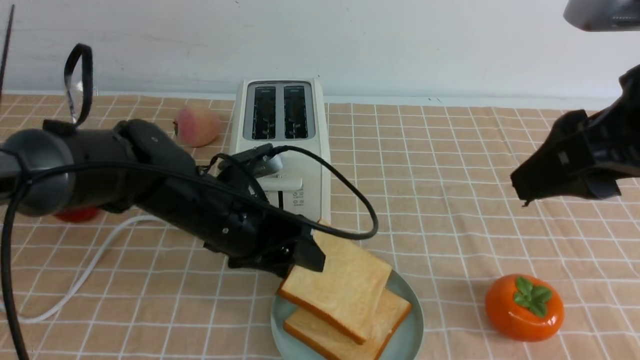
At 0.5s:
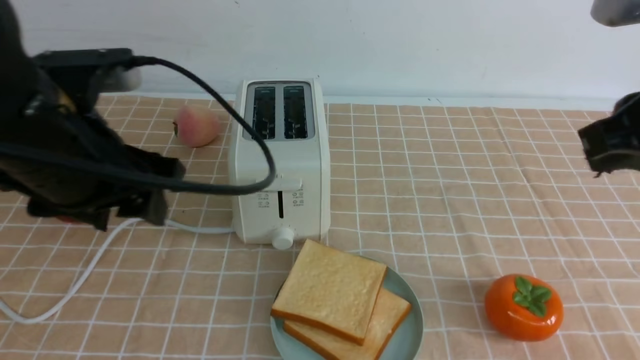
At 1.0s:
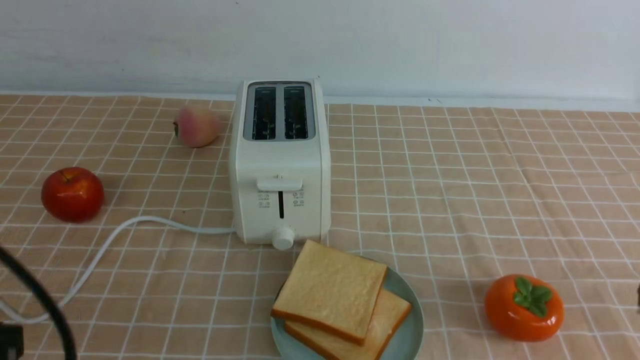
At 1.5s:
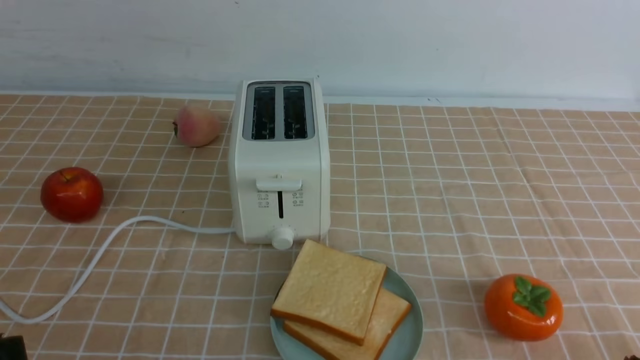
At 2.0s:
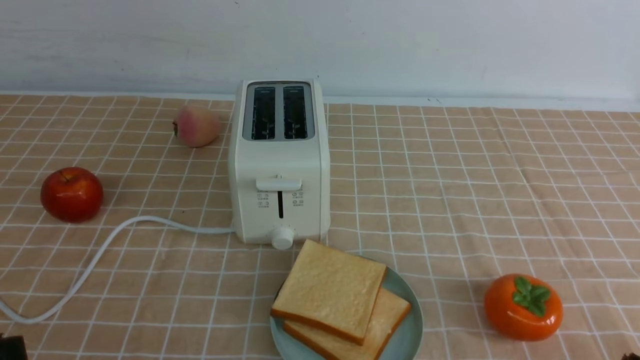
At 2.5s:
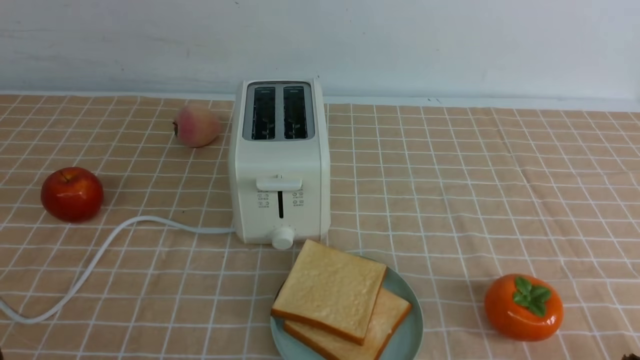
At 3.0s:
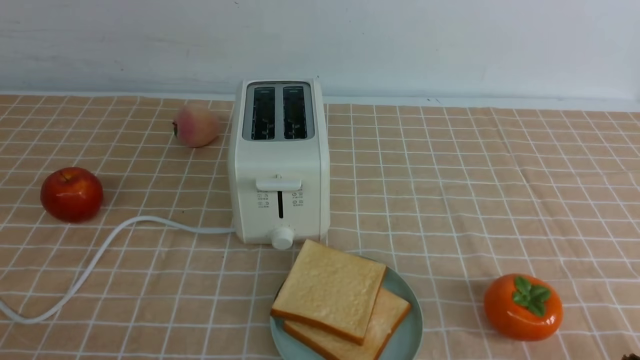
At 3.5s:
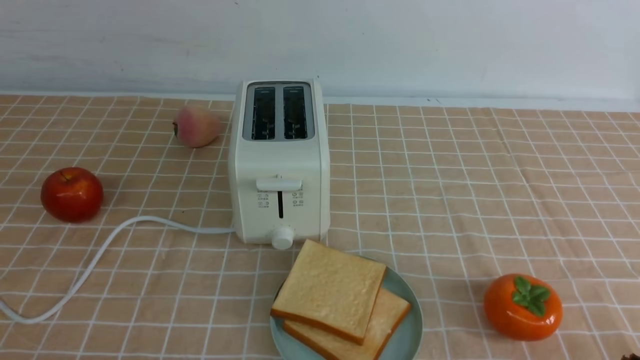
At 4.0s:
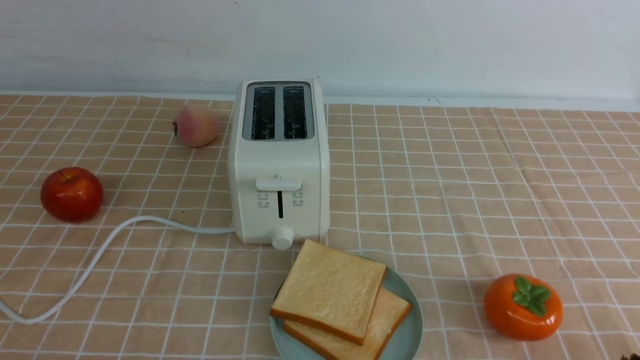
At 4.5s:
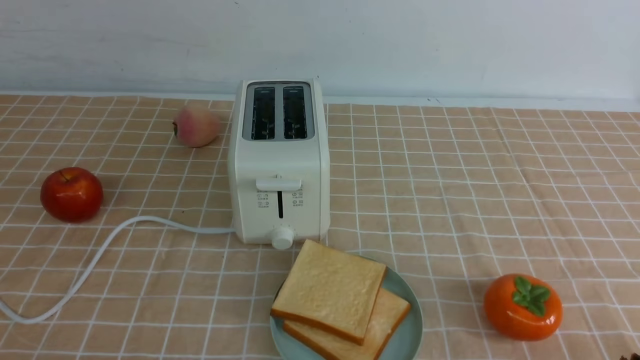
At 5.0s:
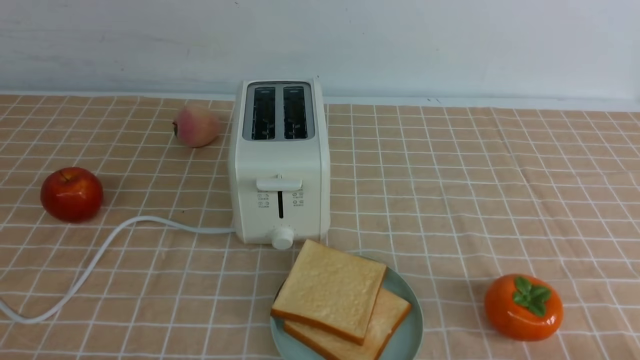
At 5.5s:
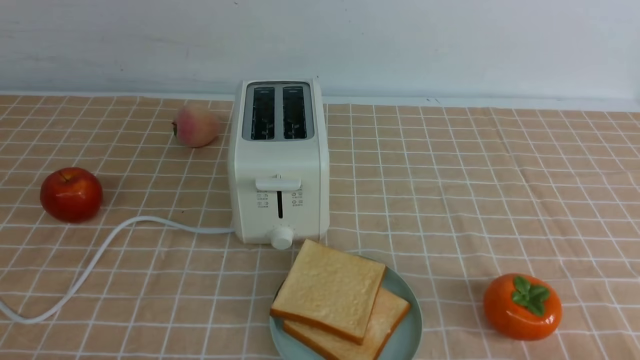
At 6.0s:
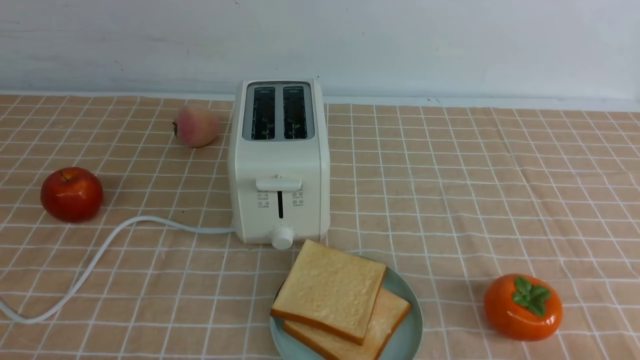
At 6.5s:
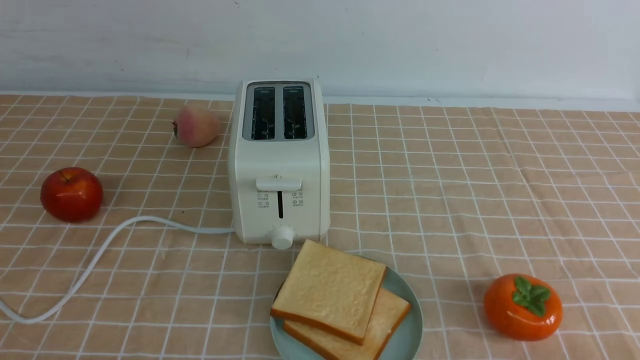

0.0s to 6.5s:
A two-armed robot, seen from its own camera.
Task of the whole recording: take toasted bread from bread machine on light coffee tablecloth place on plate.
0.0s to 2.0s: The left gripper moves backward and to the left, approximately 30 cm, and closes, while the right gripper goes roughly 25 cm downward and backward, and closes up.

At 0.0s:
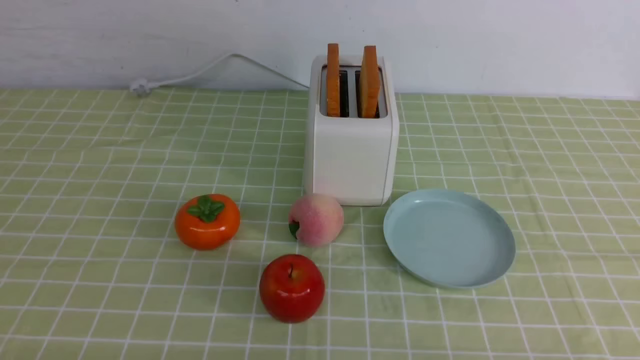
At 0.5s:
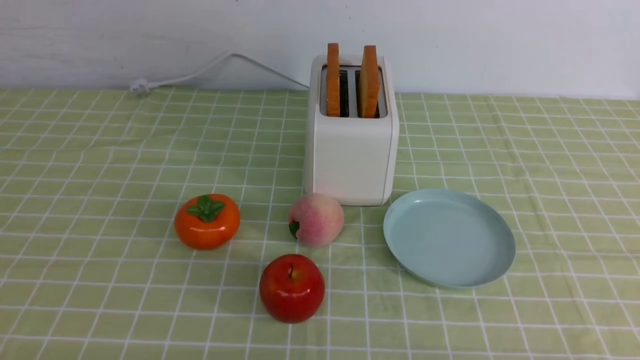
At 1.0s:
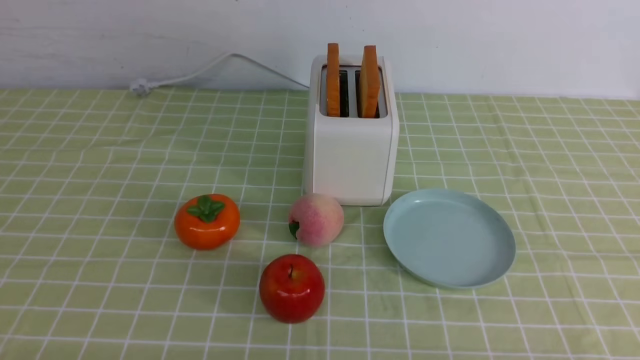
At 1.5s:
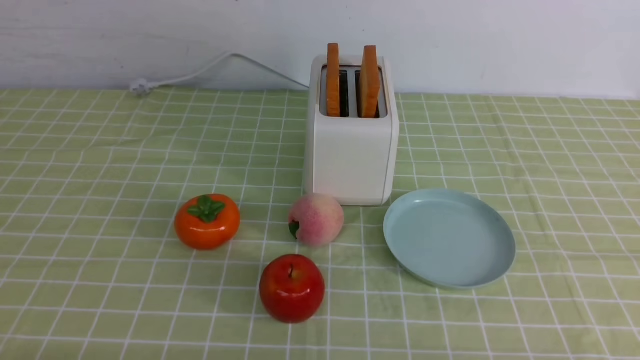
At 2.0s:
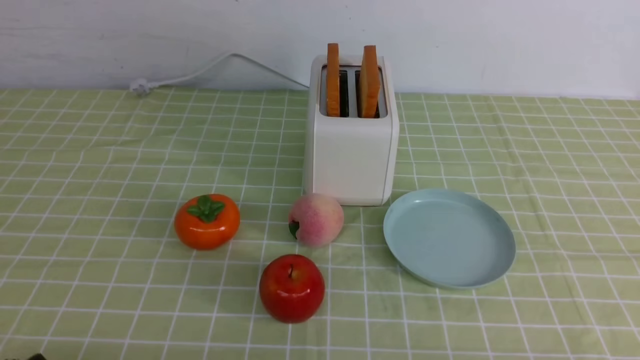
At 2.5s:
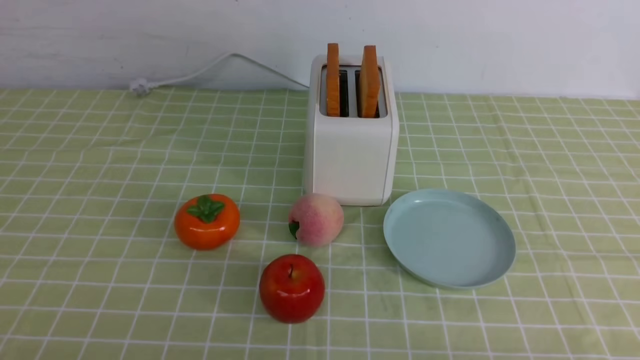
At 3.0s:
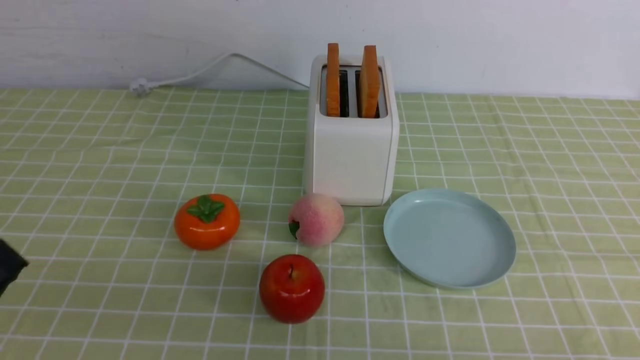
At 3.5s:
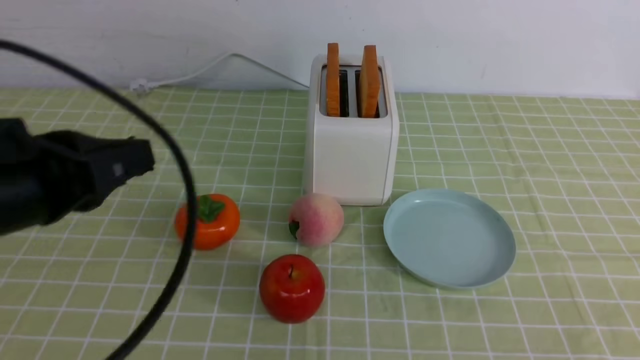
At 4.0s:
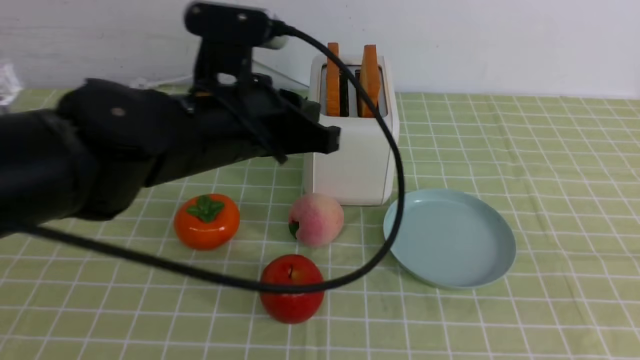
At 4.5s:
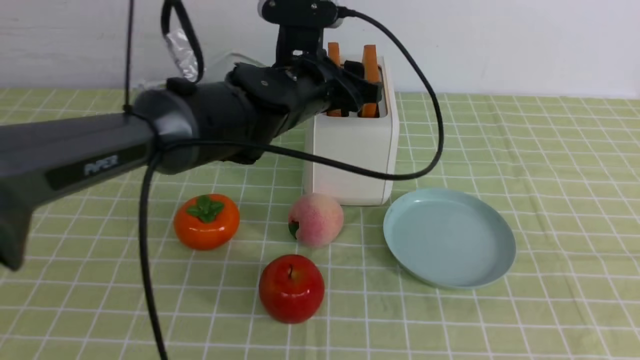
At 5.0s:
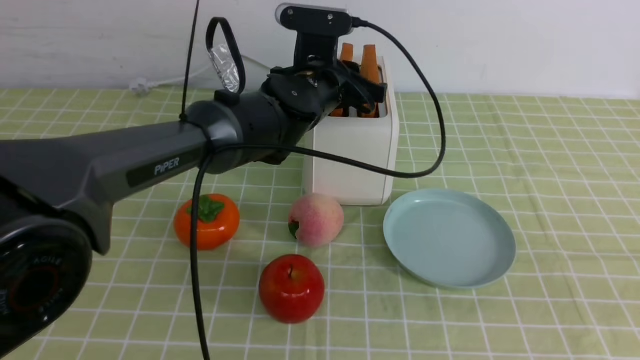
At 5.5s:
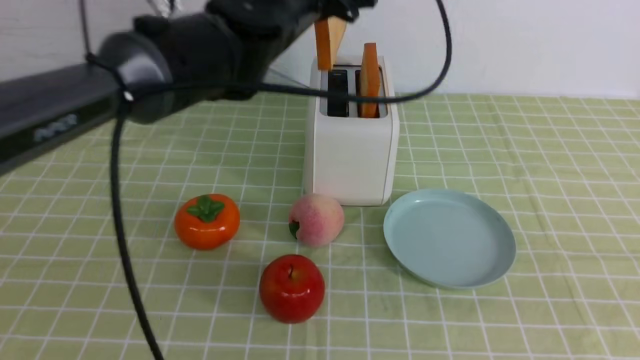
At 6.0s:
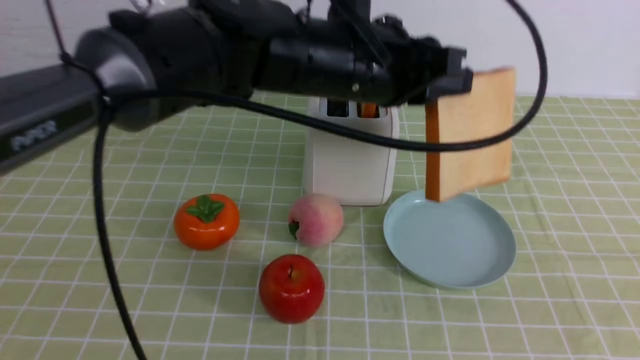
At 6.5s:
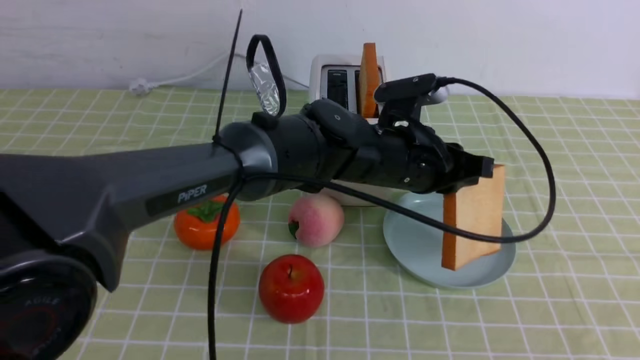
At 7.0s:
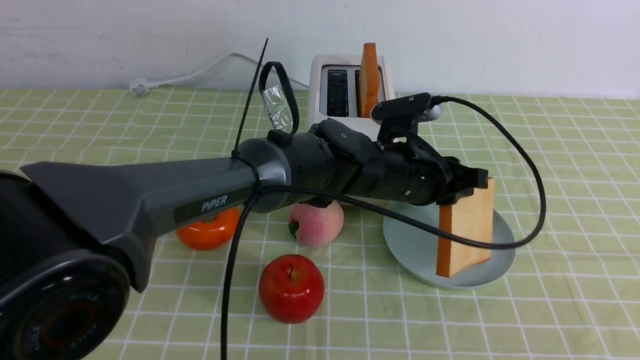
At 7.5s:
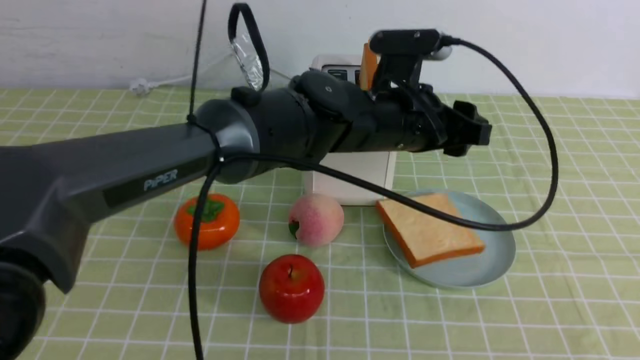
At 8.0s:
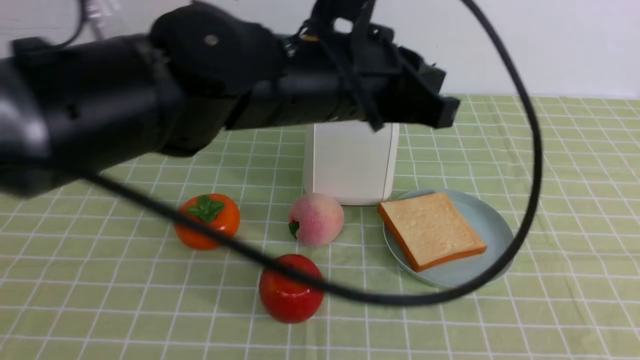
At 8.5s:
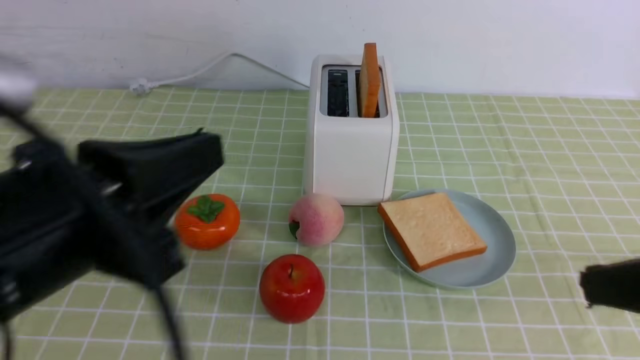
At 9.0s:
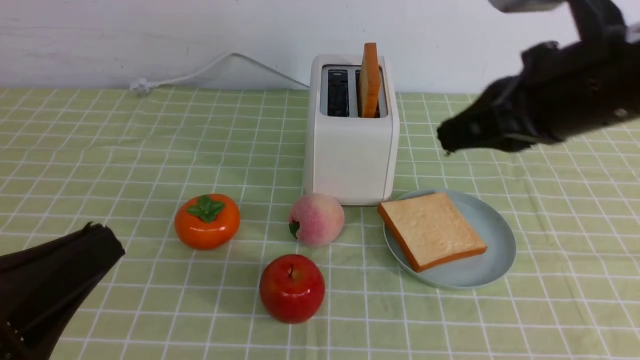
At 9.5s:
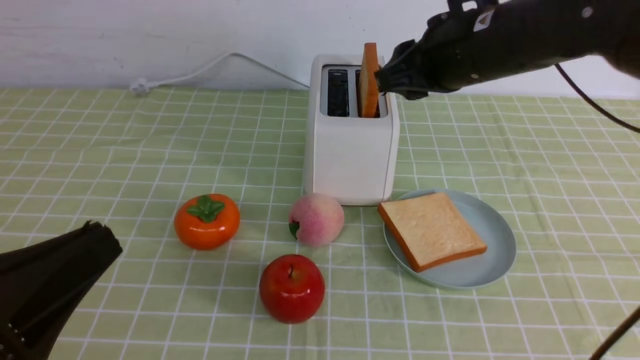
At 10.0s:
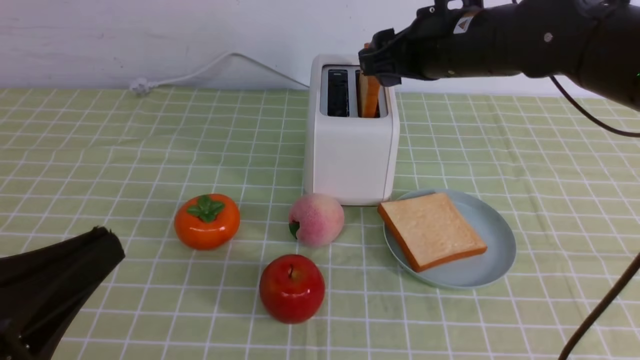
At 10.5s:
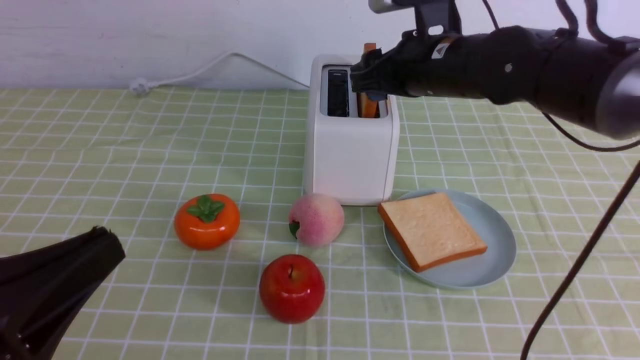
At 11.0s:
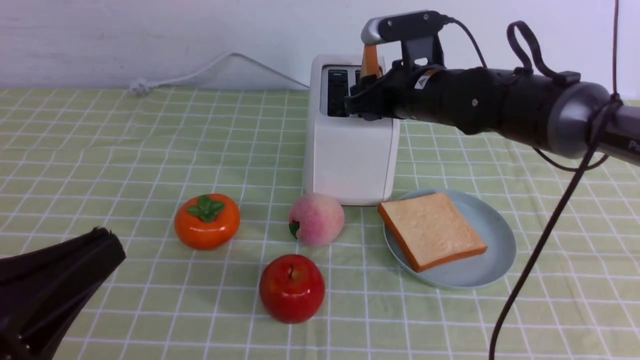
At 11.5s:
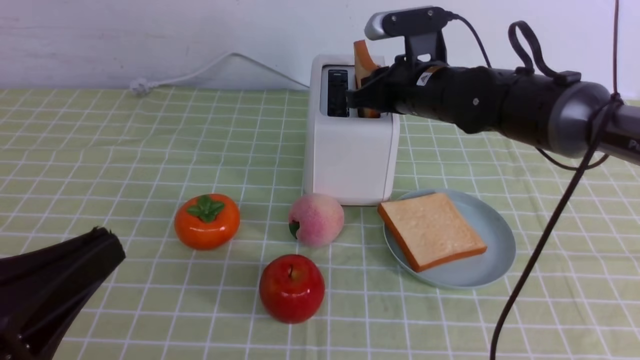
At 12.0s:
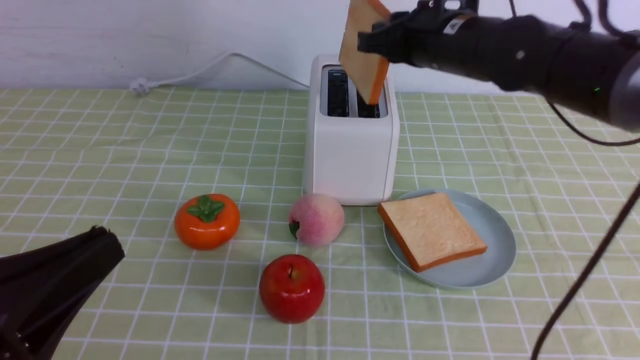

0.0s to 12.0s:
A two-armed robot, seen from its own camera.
Task of the whole recording: take toasted bread from bread machine on green coffee tablecloth place on plate.
Step, 0.0s to 5.5s: use the left arm to take out a slice of bread.
Step, 6.0s to 7.5s: use the left arm to put a slice of bread into the empty plate.
2.0s to 4.0s: The right gripper is displaced upward by approximately 20 cm, and closes up. The left gripper shifts roughly 35 cm forward, to the right and upward, and closes, then opens again.
4.0s to 6.0s: The left gripper heads to the right, covering approximately 10 cm, reaches some 15 cm forward, then returns, and opens, then closes once more.
6.0s to 8.0s: The left gripper heads backward, covering some 10 cm, travels downward and back again, approximately 10 cm each way, and opens, then closes once more.
8.0s to 10.0s: The left gripper is displaced backward and to the left by roughly 25 cm, while the right gripper goes some 35 cm forward, and opens.
10.0s to 12.0s: The right gripper reaches roughly 5 cm downward, then returns, and closes its fingers.

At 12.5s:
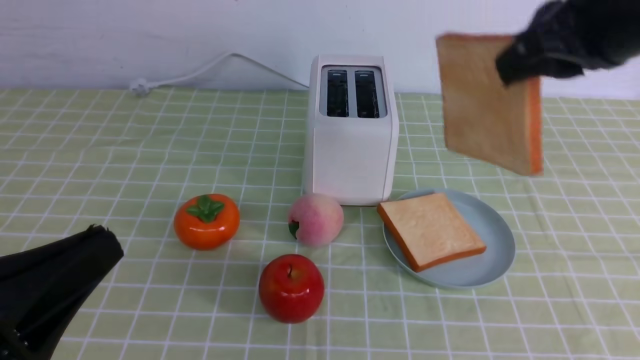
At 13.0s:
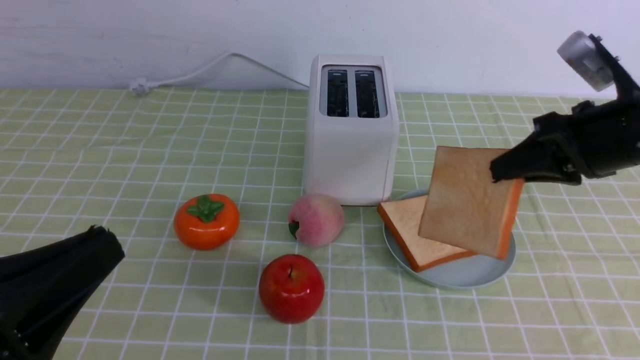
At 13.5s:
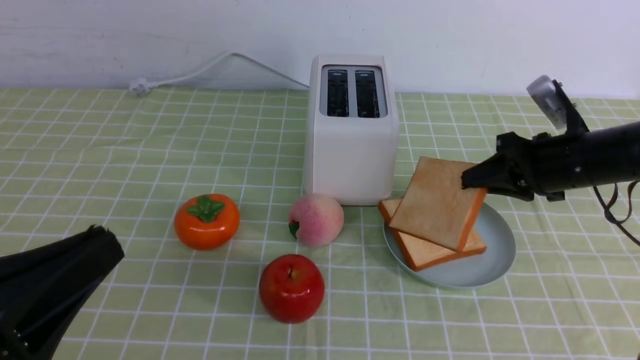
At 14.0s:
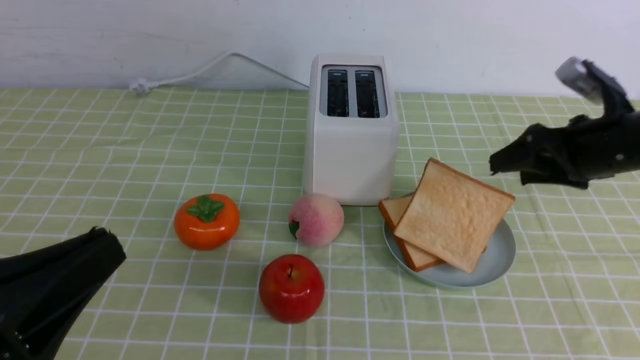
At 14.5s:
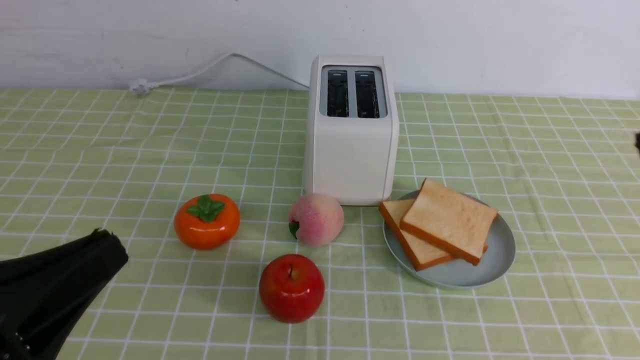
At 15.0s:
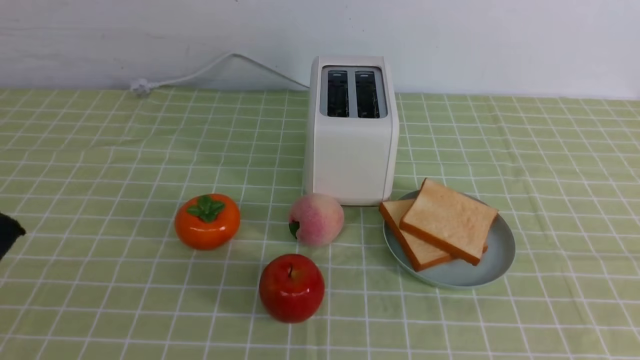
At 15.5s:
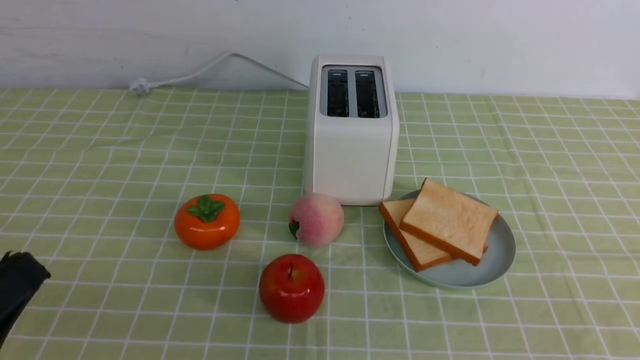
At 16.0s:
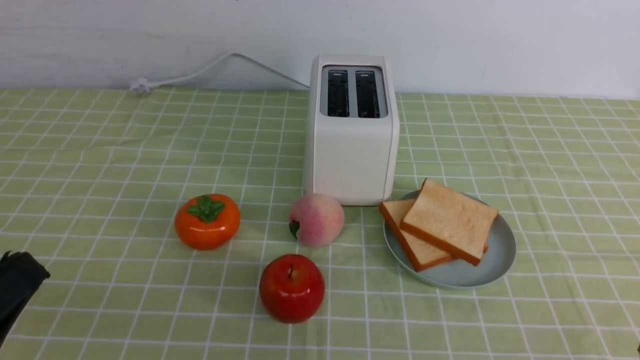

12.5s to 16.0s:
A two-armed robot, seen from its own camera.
Task of the whole recording: take toasted bread from bread machine on green coffee tablecloth place on plate.
Step, 12.5s to 14.0s: use the right arm to put a slice of bread into the plate.
12.5s to 14.5s: The right gripper travels backward and to the right by approximately 15 cm, and opens, then closes once more.
14.5s to 16.0s: The left gripper ends up roughly 5 cm from where it was.
